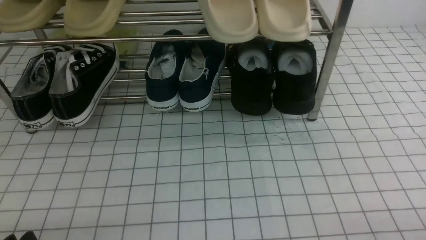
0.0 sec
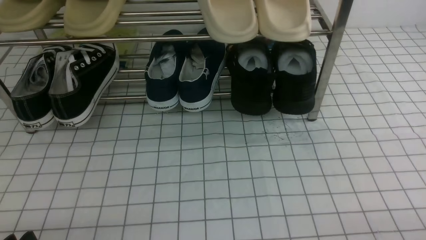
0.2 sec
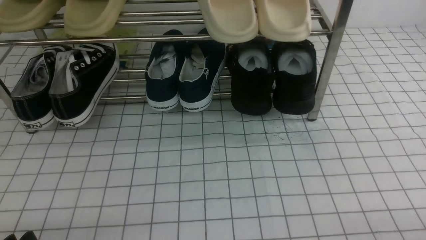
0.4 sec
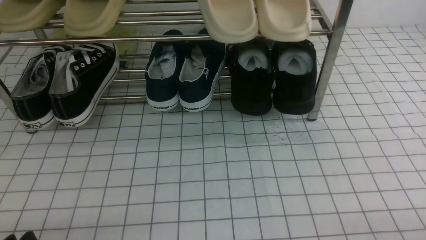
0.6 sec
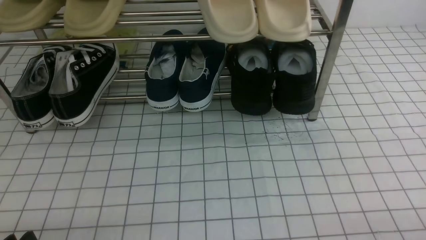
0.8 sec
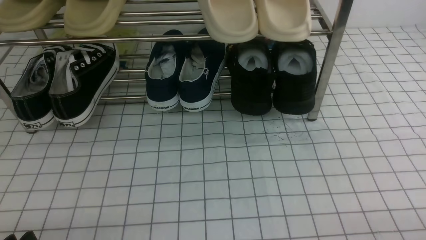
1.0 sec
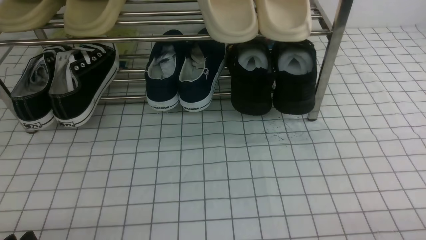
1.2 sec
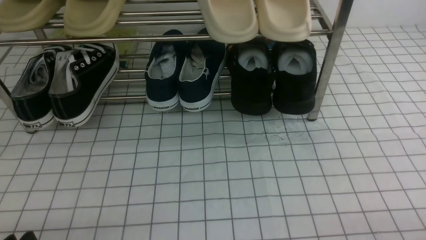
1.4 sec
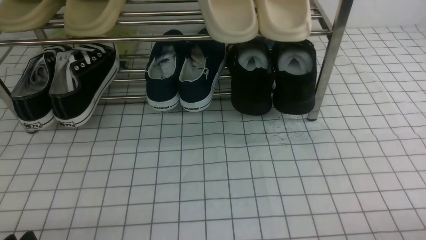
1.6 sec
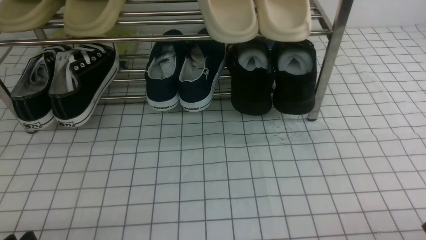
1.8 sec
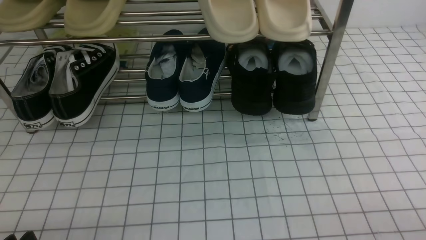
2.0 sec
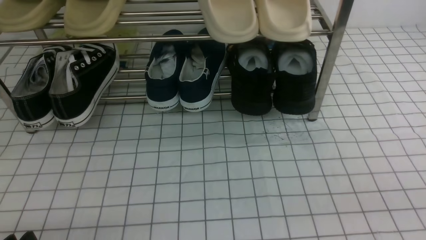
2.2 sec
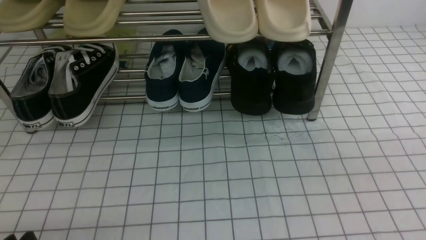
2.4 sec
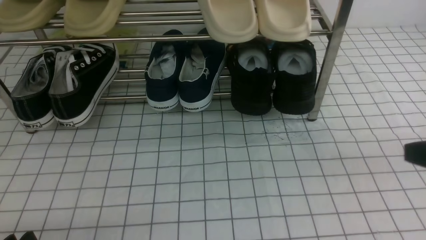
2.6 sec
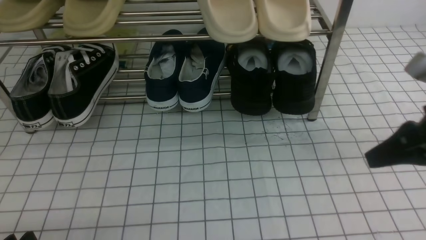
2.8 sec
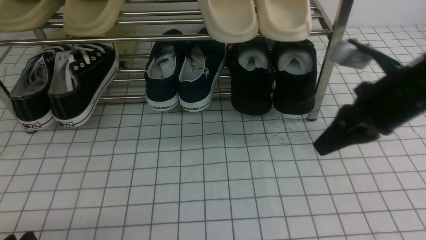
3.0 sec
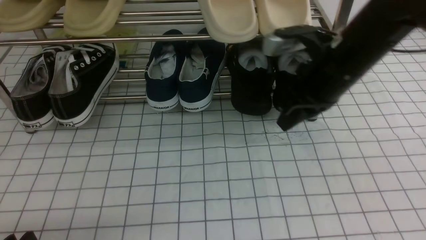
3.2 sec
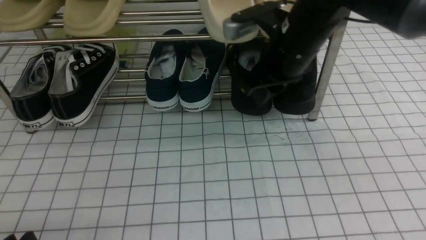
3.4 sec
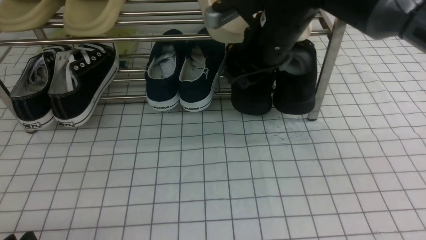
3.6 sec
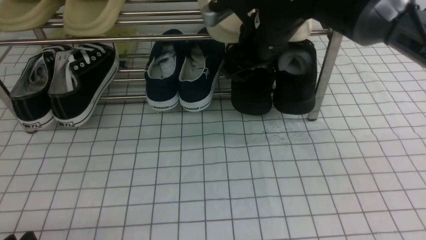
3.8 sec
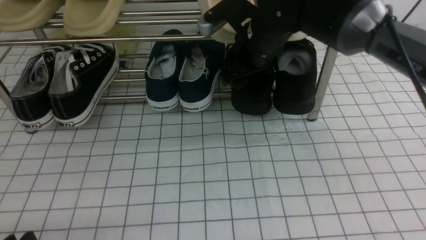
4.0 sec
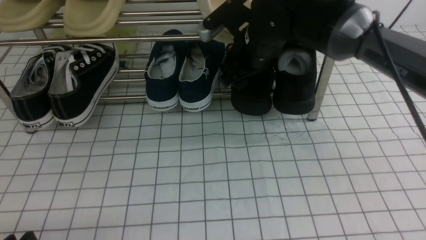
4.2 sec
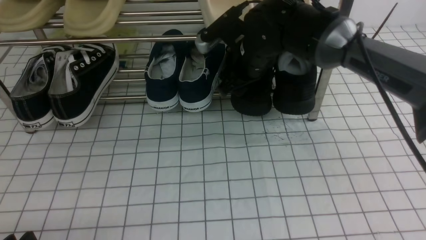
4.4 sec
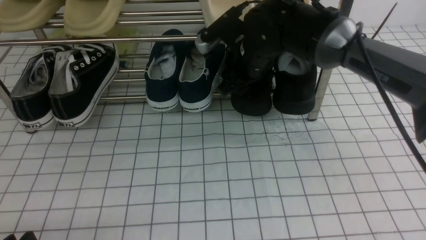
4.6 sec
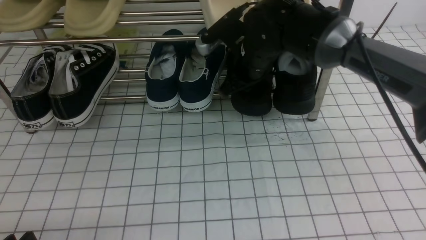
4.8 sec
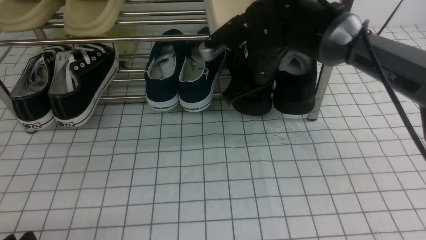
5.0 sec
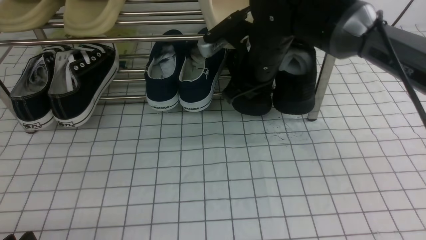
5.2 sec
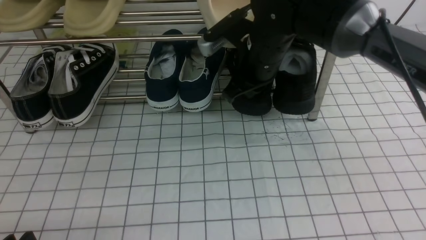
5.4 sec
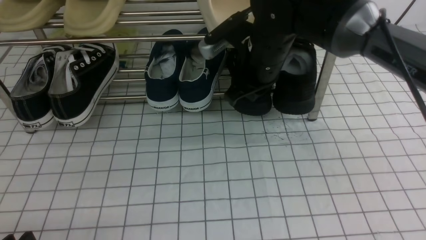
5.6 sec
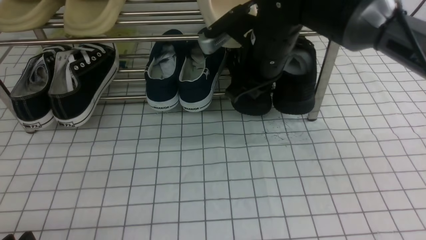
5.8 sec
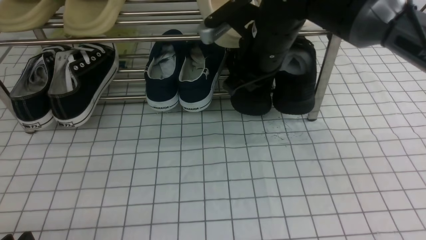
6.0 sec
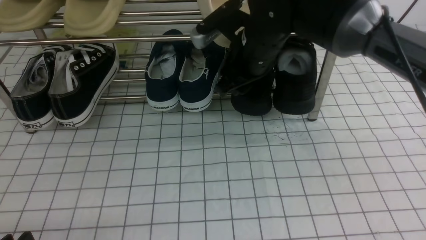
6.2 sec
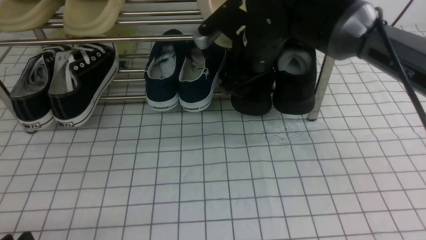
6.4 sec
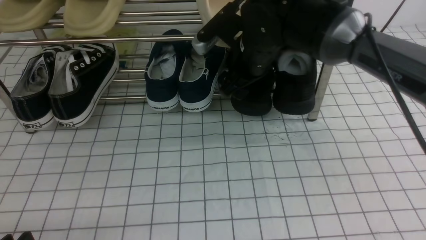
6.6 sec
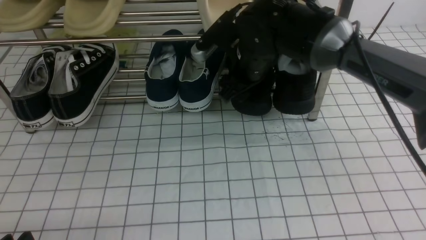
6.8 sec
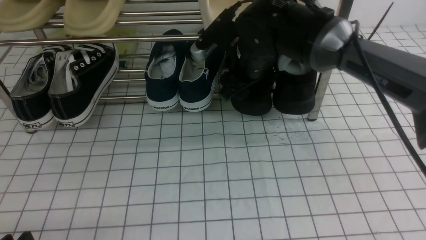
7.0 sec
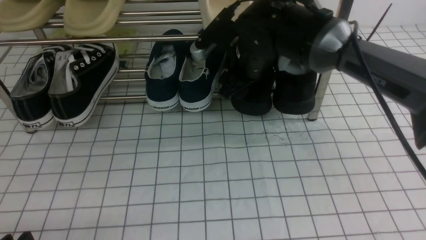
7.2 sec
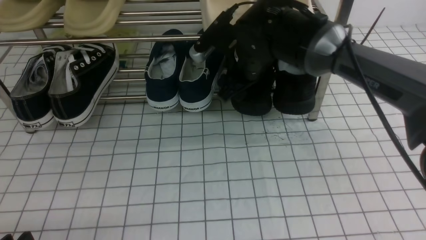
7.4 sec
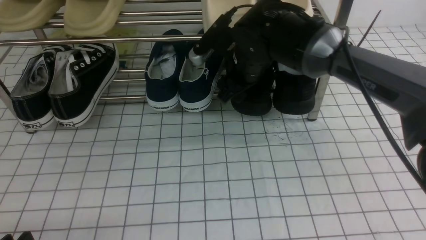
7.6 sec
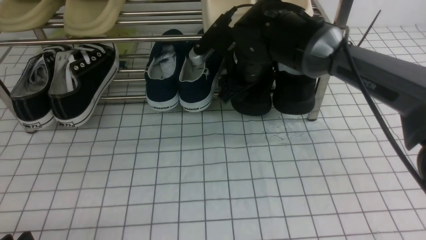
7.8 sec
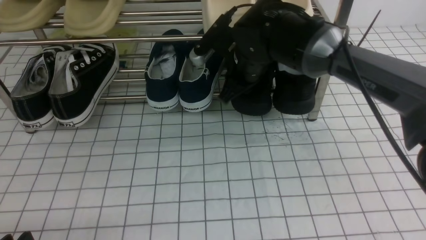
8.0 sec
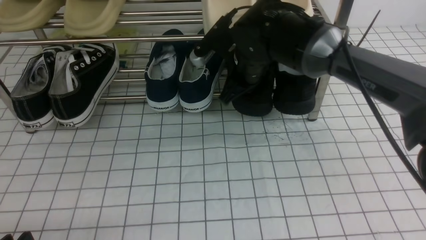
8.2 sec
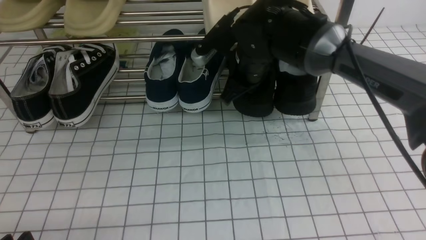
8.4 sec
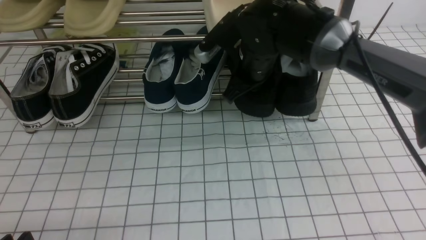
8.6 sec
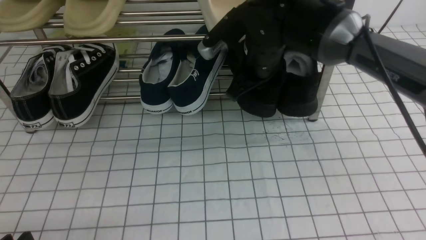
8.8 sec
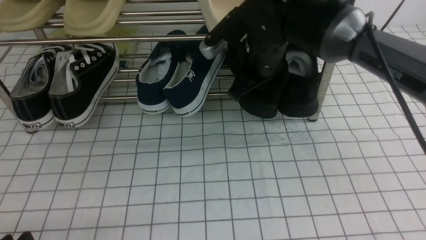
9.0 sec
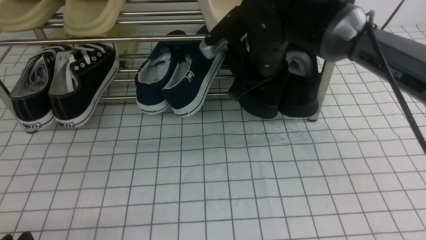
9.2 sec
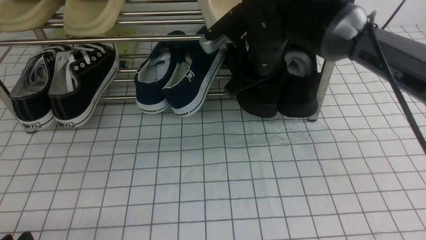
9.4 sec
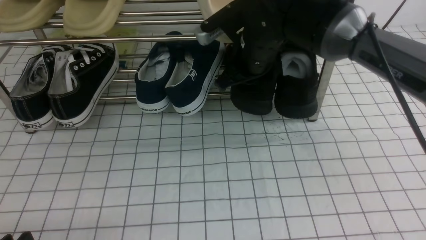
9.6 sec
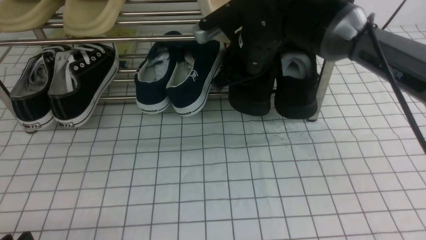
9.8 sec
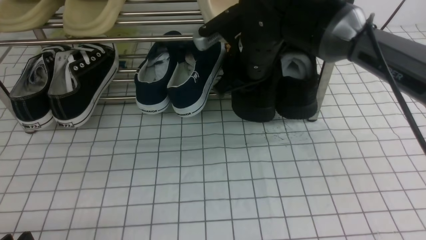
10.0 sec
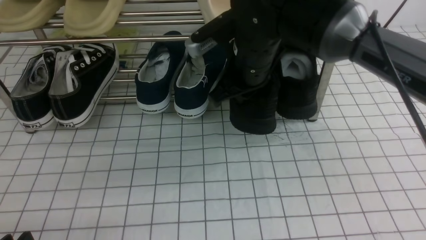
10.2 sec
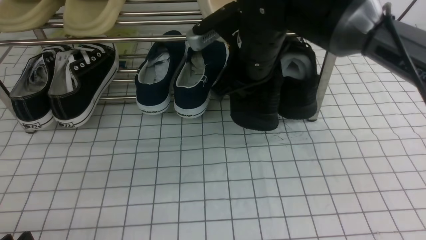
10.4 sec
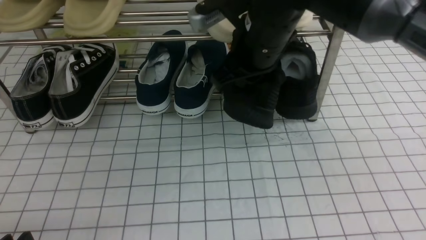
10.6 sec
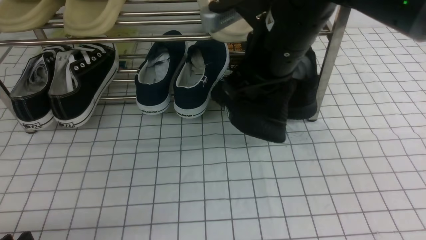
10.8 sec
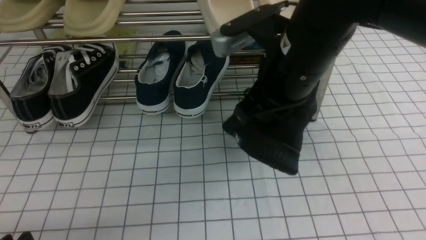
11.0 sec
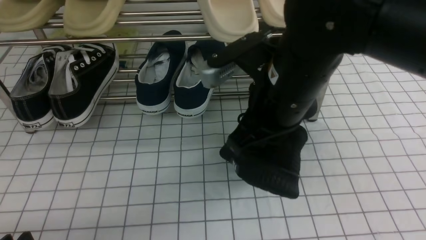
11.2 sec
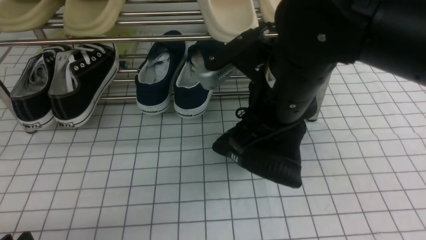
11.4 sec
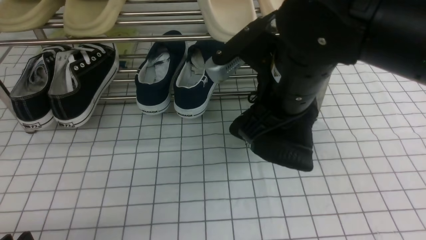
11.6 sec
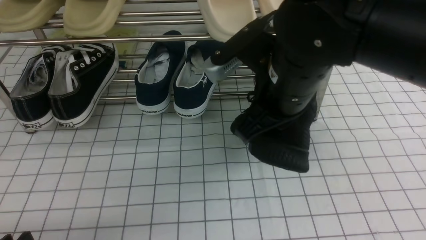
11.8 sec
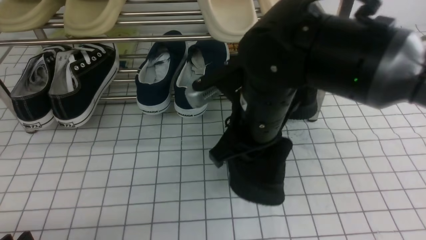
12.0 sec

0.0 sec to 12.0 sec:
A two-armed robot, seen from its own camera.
Step, 0.0 sec to 8.0 sec: use the right arm to clamp a shoe on the right side of the shoe rack.
1.6 sec to 3.0 sec: The right gripper shifts approximately 25 cm forward and upward, and closes its fingers.
3.0 sec to 4.4 sec: The right gripper travels to the left and forward by approximately 25 cm, and opens.
4.4 sec to 6.0 sec: The right gripper shifts by some 5 cm, and closes.
6.0 sec to 7.6 sec: The right gripper travels downward by approximately 5 cm, and opens its fingers.
7.6 sec to 9.0 sec: The right gripper closes its fingers.
9.0 sec to 10.4 sec: The right gripper ends up some 5 cm from where it was.
10.4 sec to 12.0 sec: The right gripper moves backward, roughly 10 cm.

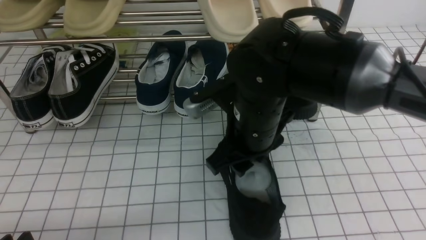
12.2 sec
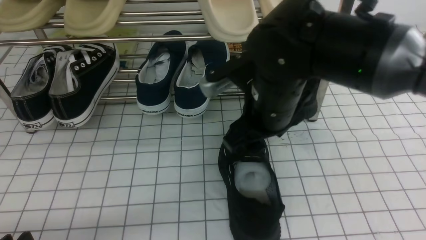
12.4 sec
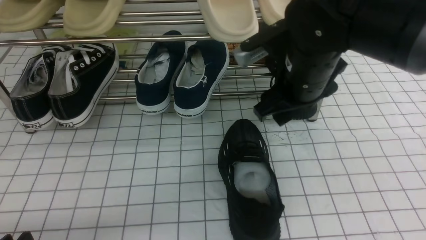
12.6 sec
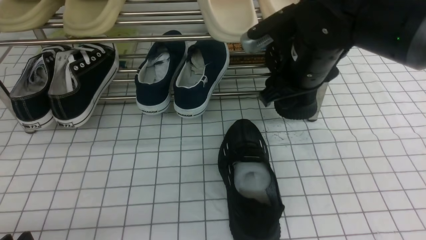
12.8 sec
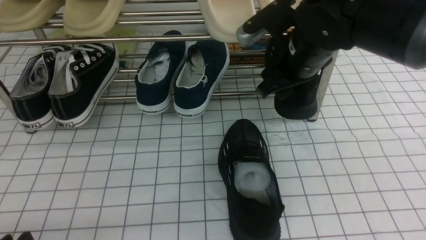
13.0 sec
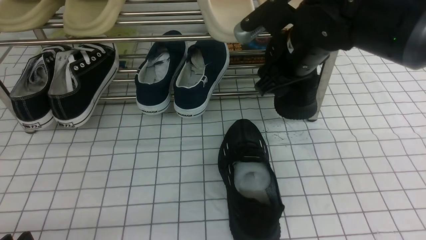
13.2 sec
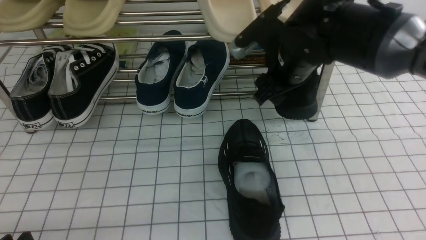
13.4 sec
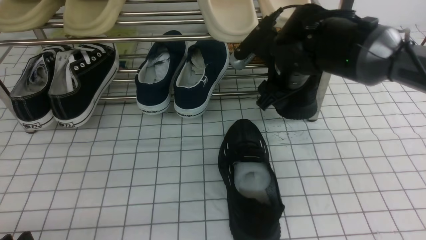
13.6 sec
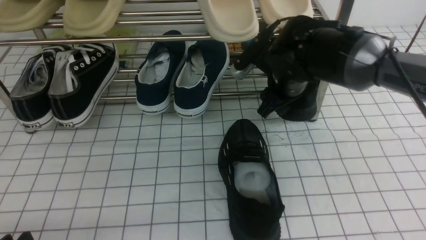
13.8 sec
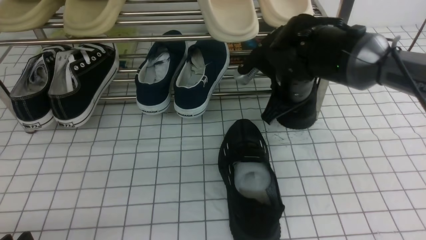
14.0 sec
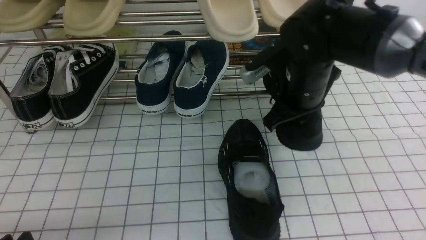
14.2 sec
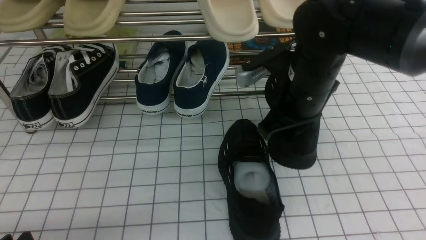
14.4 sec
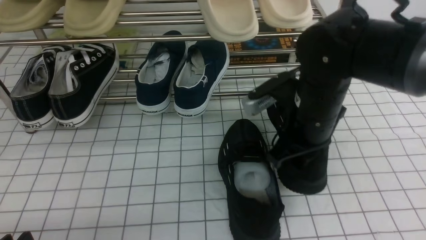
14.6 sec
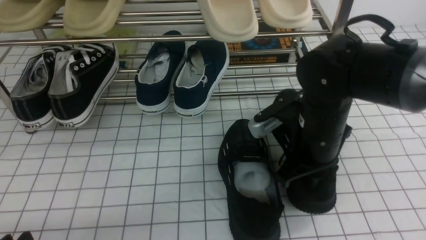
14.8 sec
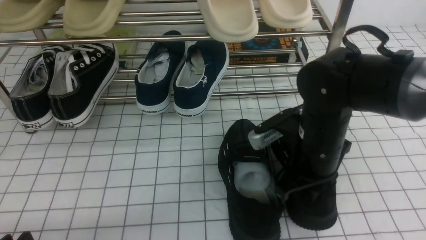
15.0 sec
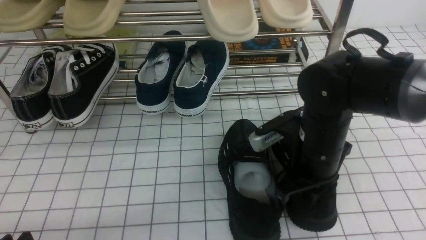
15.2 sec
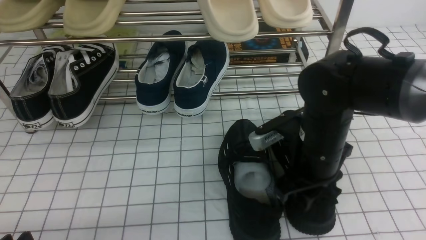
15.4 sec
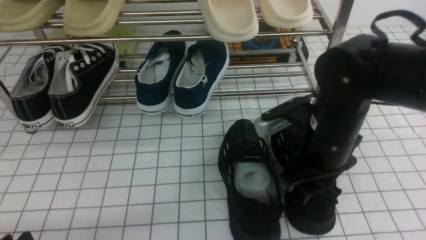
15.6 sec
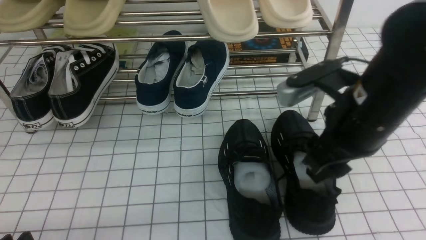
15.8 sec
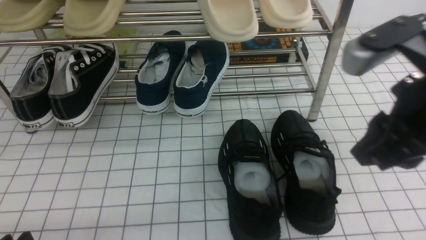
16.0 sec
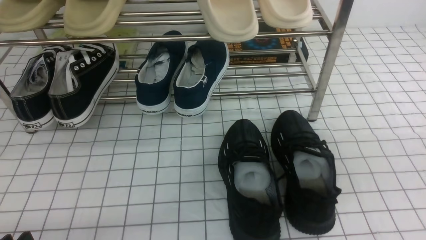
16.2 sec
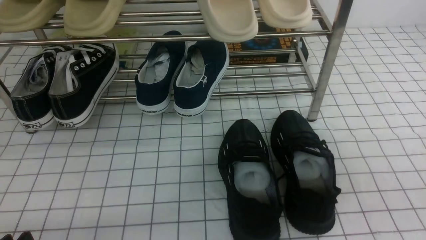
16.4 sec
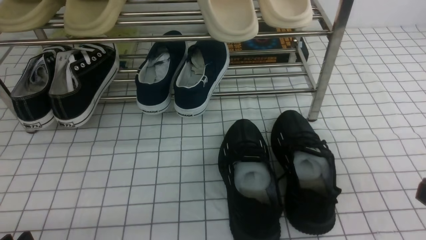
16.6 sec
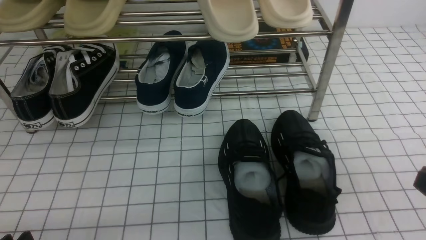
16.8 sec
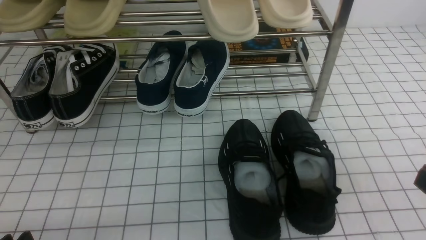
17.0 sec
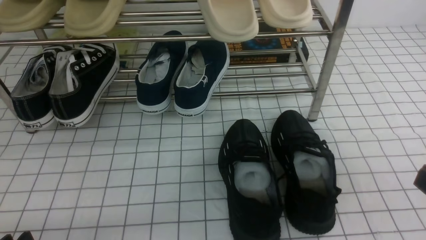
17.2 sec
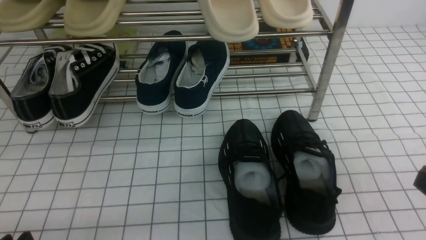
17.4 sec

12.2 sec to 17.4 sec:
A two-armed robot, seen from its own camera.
Step, 12.6 sec to 13.8 sec: use the right arm to clamp a shoe on the right side of the shoe rack.
Step, 14.0 sec to 15.8 sec: use the right arm to take out the clamped shoe from the shoe rack and put it down.
12.2 sec to 14.0 sec: The right gripper goes some 10 cm forward and to the right, and opens and closes again.
14.0 sec to 15.6 sec: The right gripper goes some 10 cm backward, and closes and opens again.
15.6 sec to 17.4 sec: The right gripper is displaced backward and to the right by some 25 cm, and closes up.
